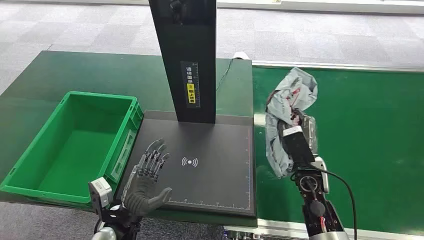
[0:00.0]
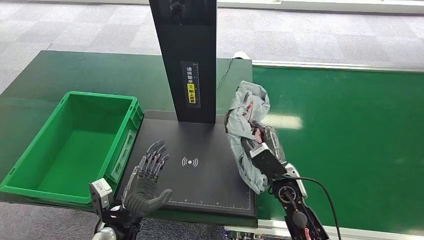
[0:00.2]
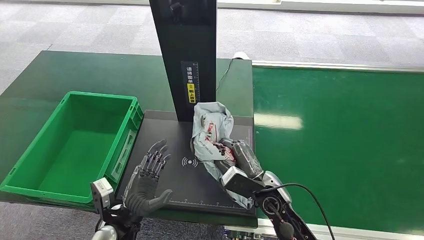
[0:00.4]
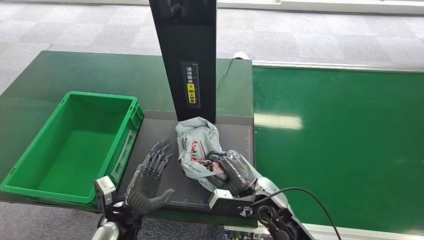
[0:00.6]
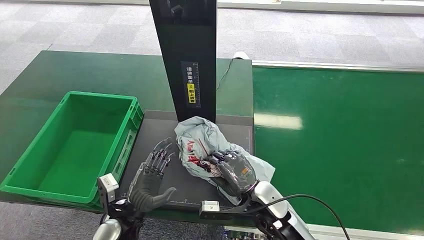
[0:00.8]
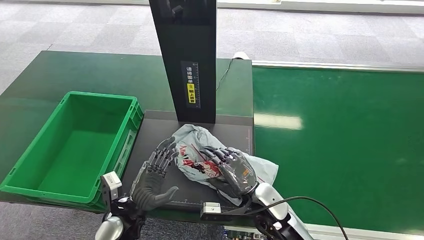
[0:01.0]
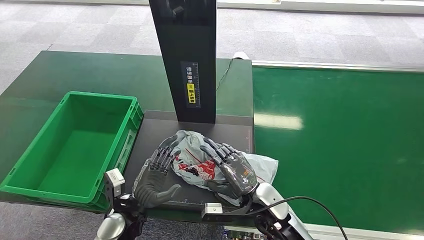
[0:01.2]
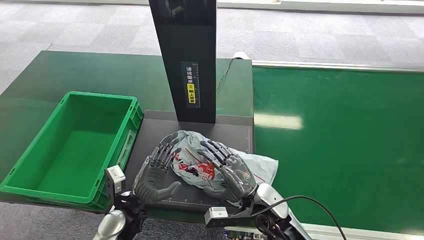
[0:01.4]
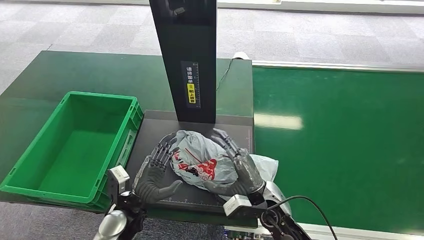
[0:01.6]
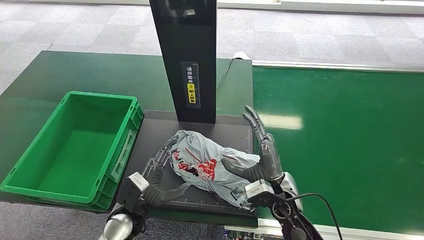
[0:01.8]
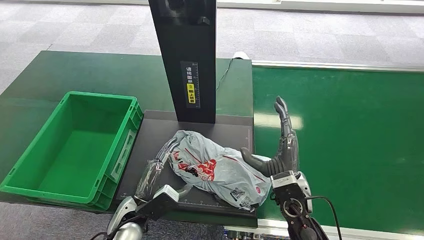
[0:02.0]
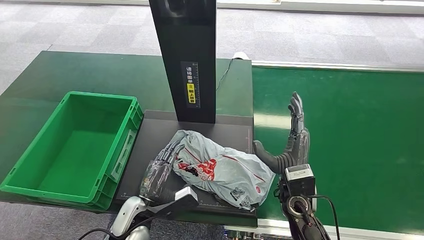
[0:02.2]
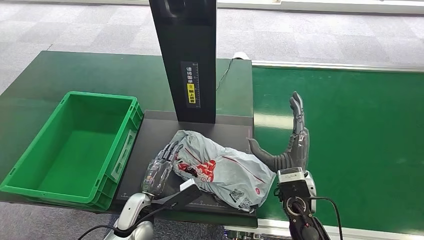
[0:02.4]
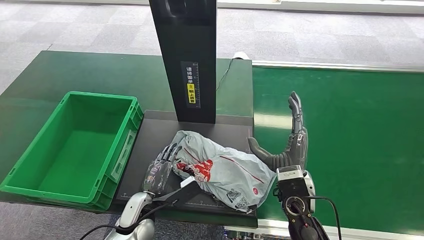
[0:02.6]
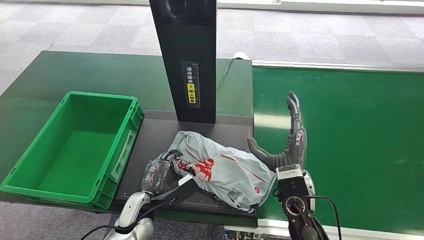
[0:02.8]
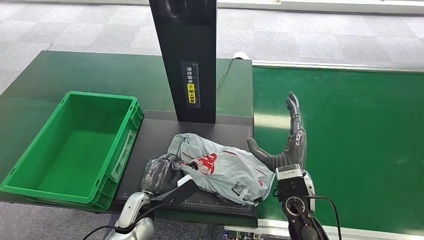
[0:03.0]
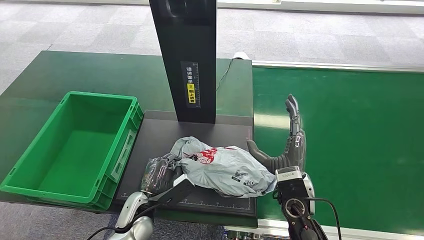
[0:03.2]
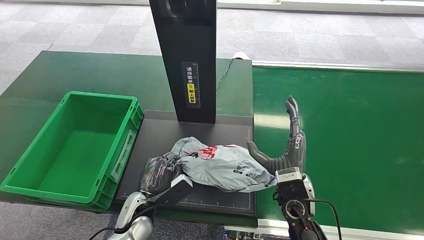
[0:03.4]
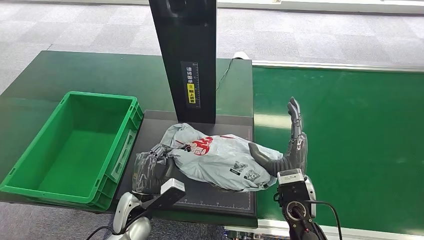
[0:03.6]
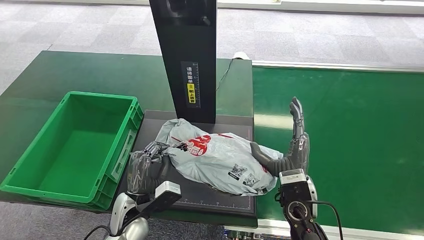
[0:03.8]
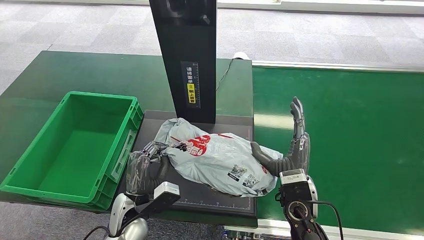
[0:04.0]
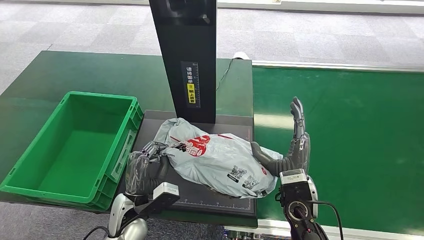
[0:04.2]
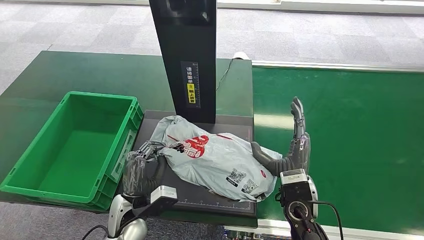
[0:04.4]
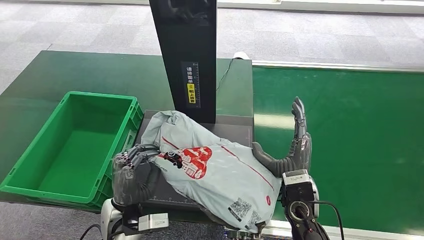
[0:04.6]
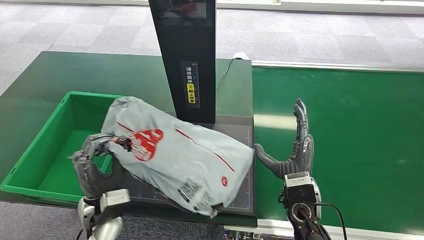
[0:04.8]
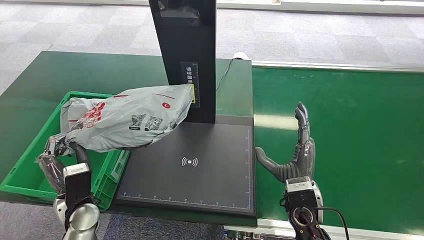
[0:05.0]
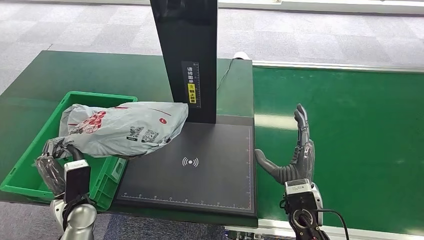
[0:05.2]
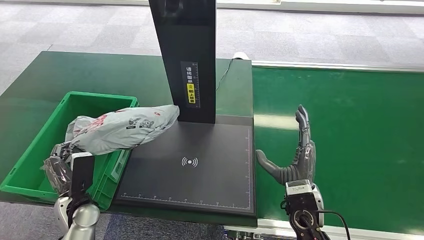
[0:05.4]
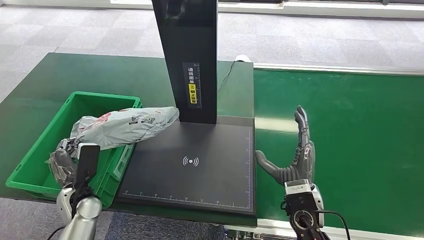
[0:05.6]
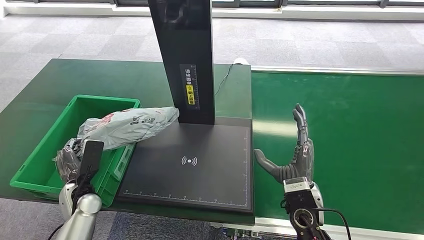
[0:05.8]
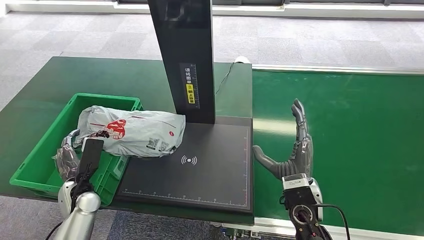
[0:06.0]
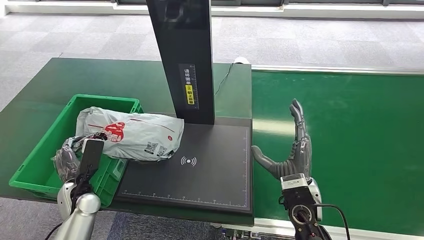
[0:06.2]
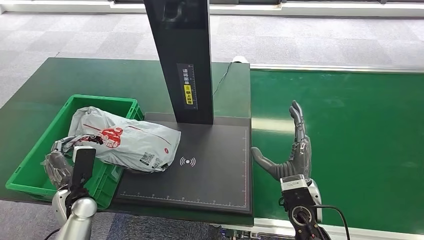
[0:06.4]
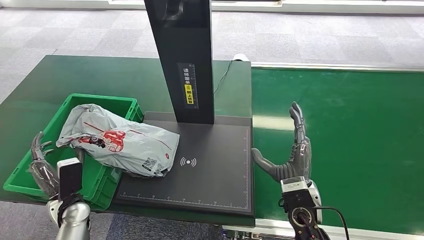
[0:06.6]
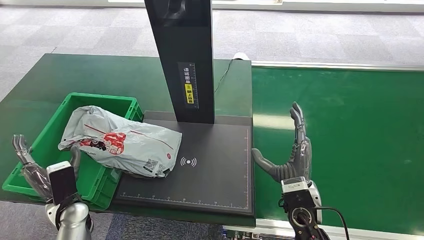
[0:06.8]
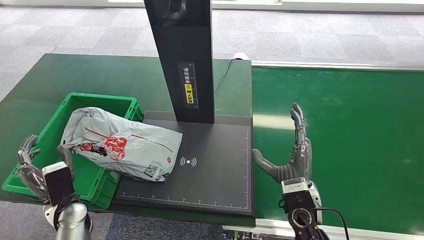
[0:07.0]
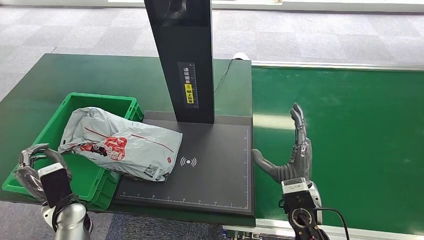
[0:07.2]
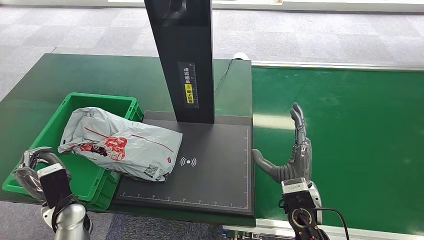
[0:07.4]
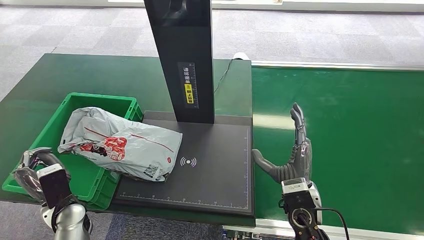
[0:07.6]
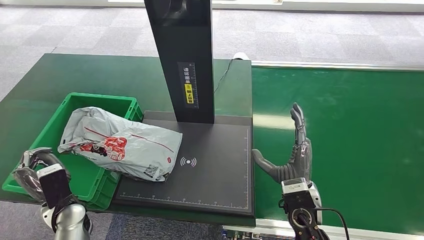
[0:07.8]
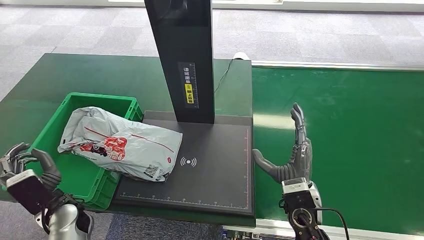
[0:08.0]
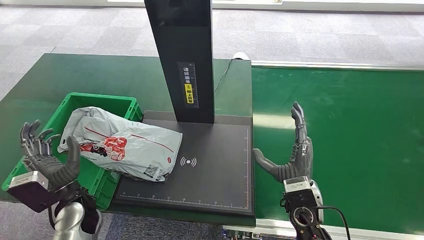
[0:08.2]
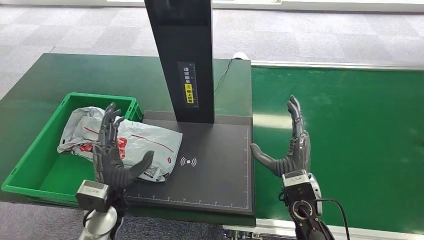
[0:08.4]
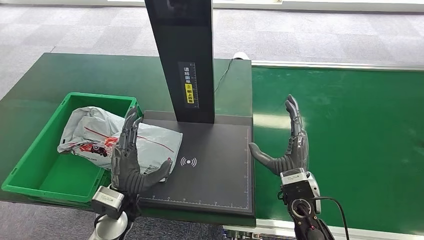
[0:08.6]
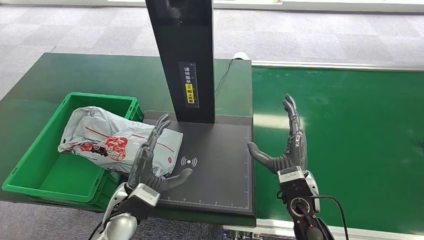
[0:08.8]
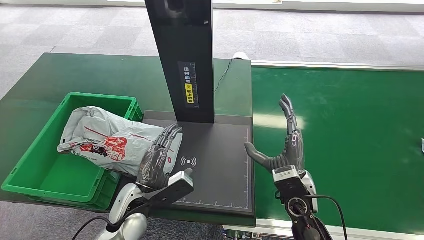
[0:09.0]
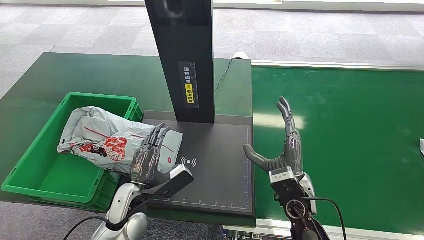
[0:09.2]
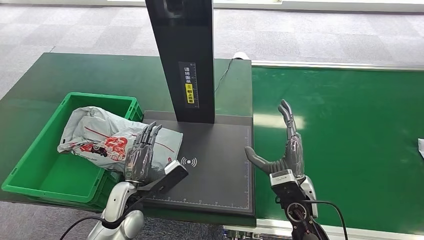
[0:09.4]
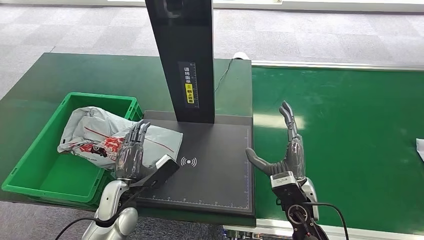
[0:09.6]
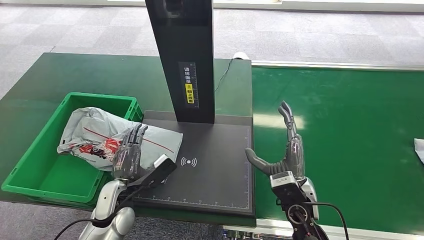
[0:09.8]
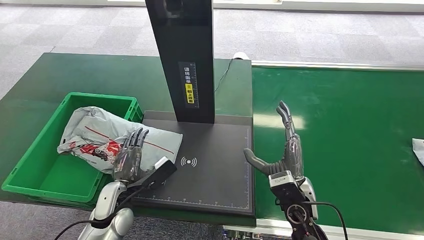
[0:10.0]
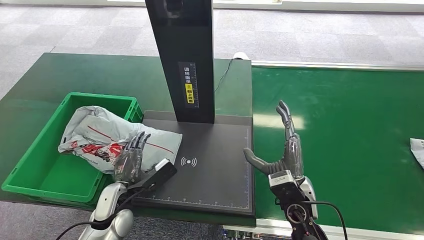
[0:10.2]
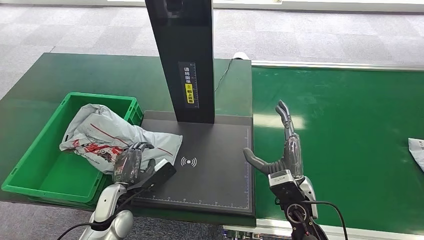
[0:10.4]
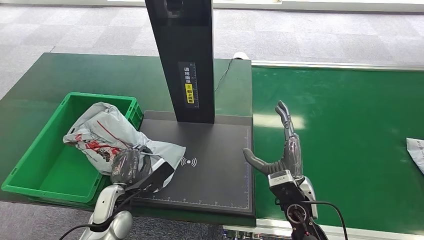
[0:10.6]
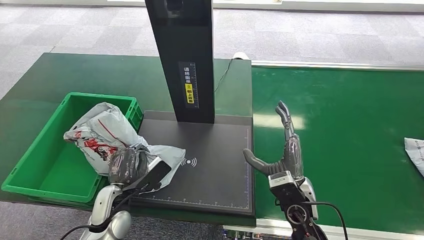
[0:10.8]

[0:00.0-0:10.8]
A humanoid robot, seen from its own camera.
Task of the whole recording: Weigh the package on the weighing device and place it in the left basket.
Step, 0:04.2 to 0:04.4: Pick up the package from the inbound machine.
0:01.6 to 0:03.0: The right hand shifts by some 5 cm.
0:03.0 to 0:04.6: The left hand goes approximately 5 cm upward.
0:07.8 to 0:09.2: The left hand goes roughly 15 cm to the right.
0:09.2 to 0:10.8: The hands make only small movements.

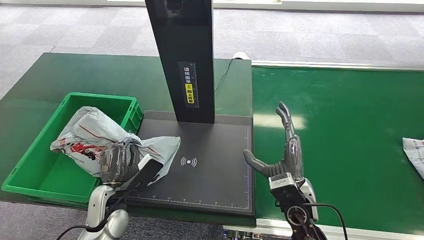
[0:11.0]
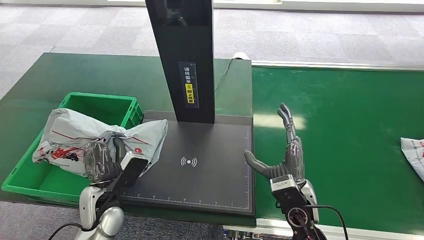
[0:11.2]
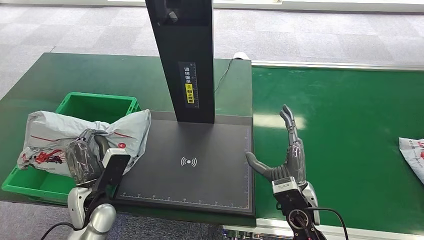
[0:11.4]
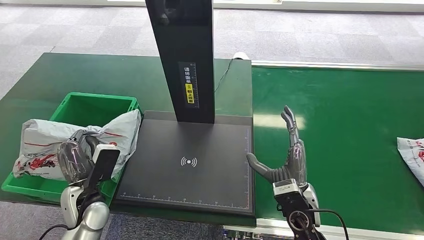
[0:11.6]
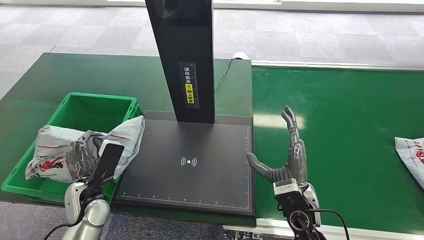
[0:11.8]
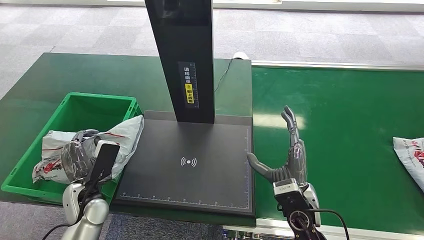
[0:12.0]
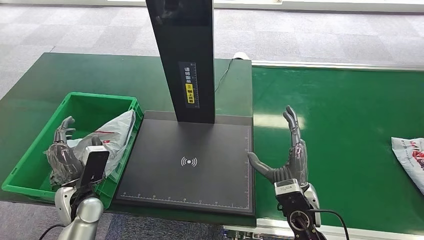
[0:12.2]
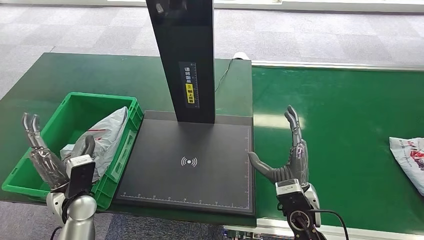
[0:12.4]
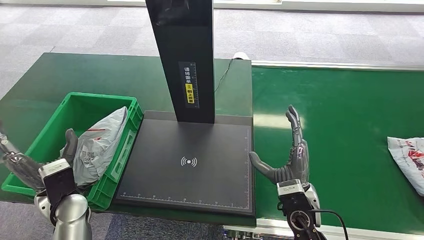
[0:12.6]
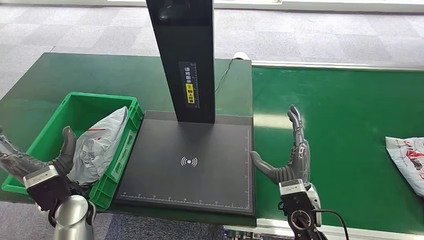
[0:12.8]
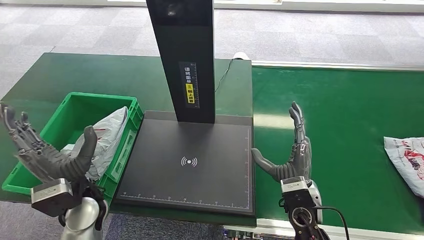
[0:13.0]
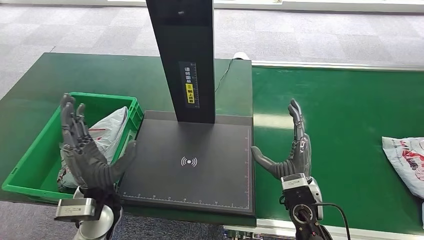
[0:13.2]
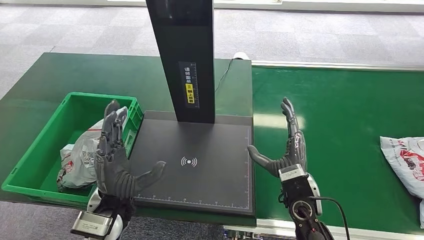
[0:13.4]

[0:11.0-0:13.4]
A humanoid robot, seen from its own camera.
Task of the whole recording: Weigh the package on the weighing device and place it in the left basket.
0:11.0 to 0:12.2: The left hand heads to the left, covering about 5 cm.
0:12.2 to 0:13.4: The left hand is displaced to the right and upward by some 15 cm.
